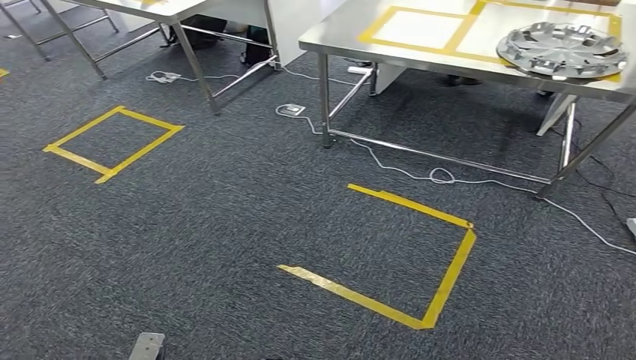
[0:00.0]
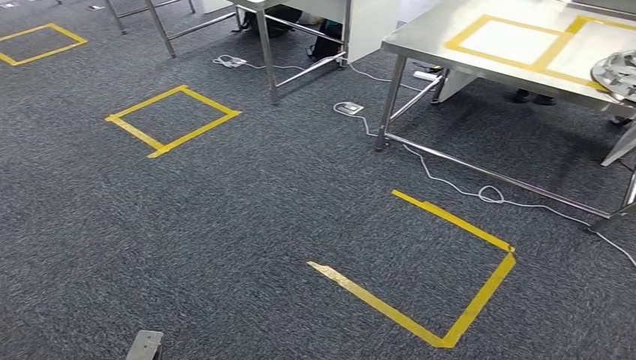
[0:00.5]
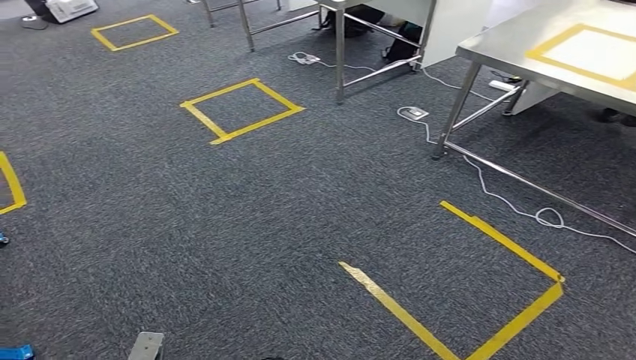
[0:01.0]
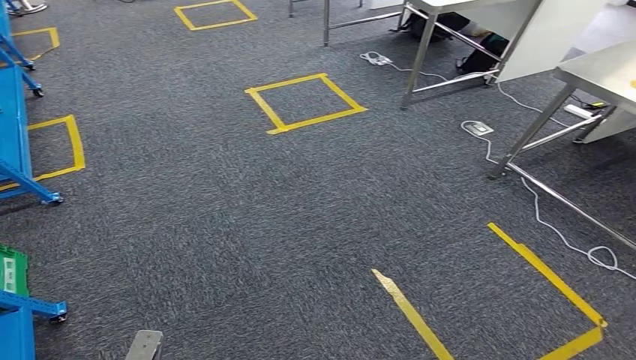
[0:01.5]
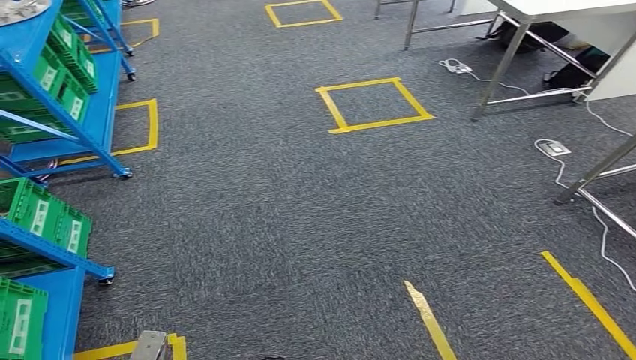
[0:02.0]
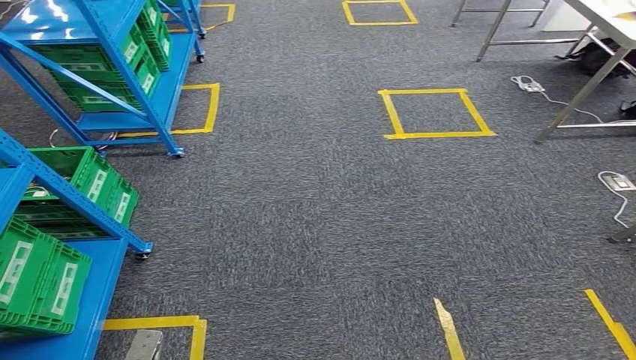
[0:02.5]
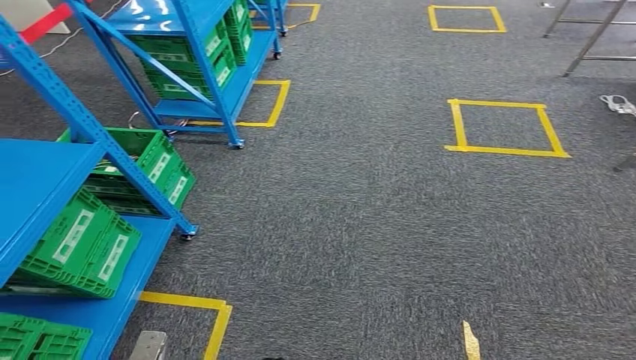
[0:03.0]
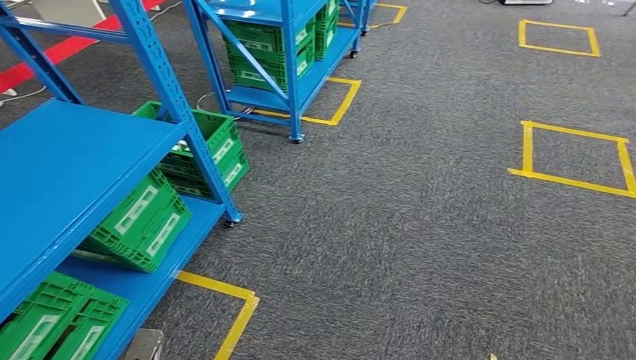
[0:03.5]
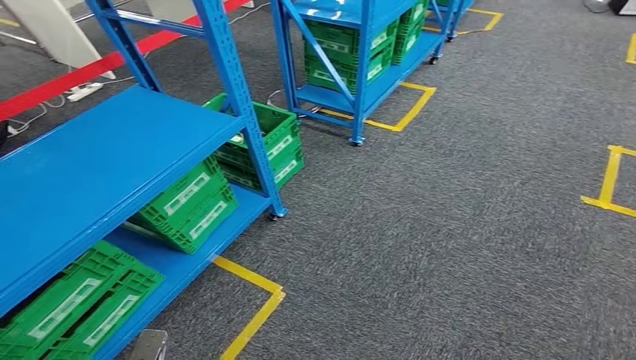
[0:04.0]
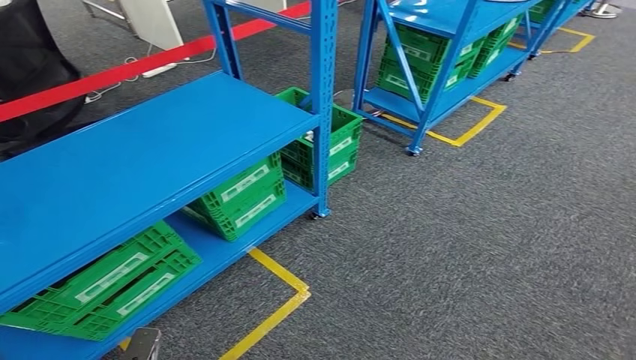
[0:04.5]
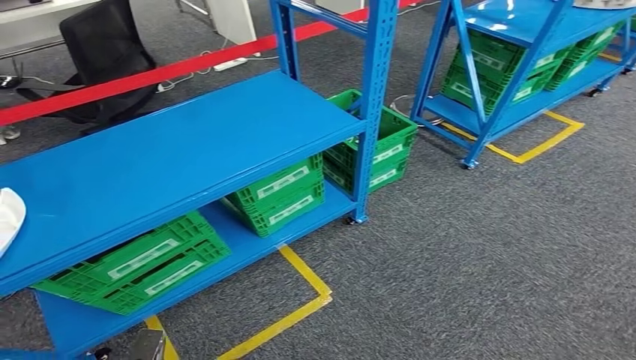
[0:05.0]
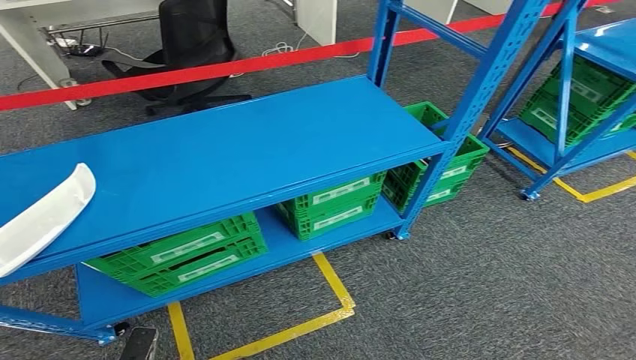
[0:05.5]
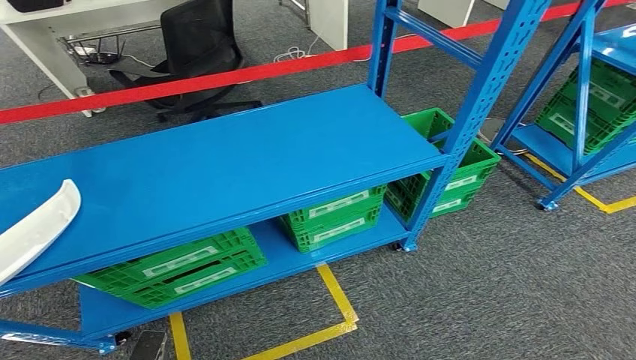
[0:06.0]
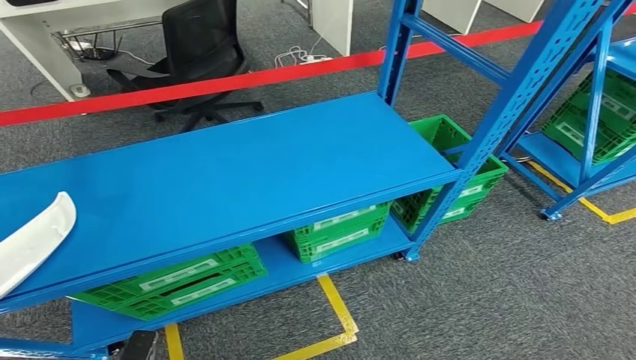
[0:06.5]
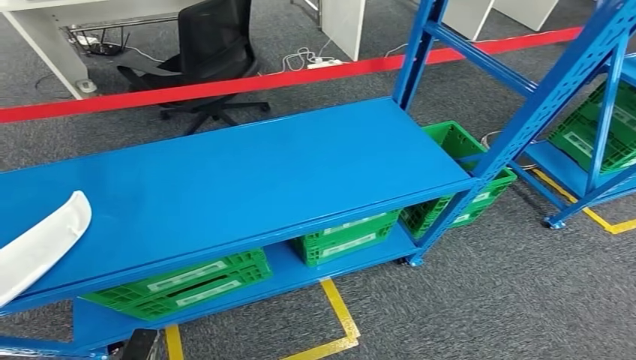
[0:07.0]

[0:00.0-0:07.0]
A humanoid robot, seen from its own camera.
Step, 0:00.0 to 0:07.0: Return to the initial position at the workbench.

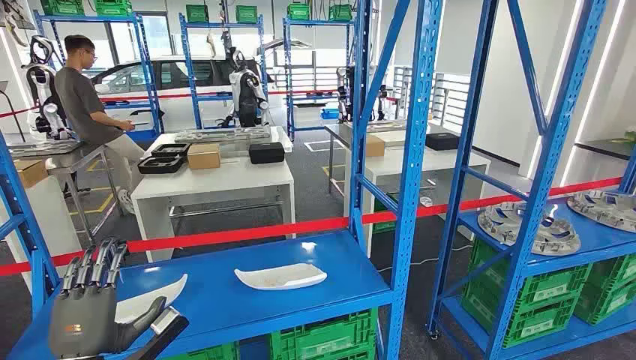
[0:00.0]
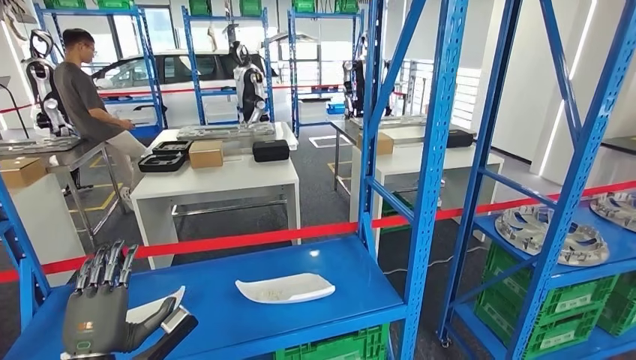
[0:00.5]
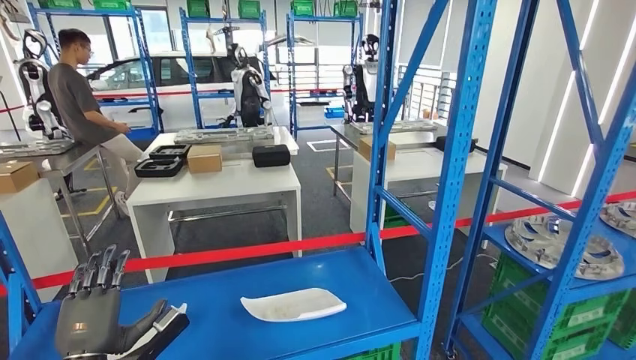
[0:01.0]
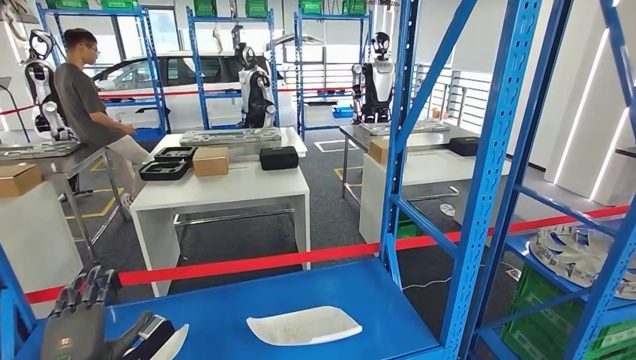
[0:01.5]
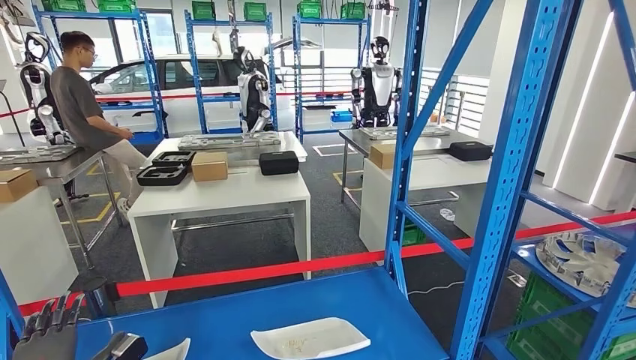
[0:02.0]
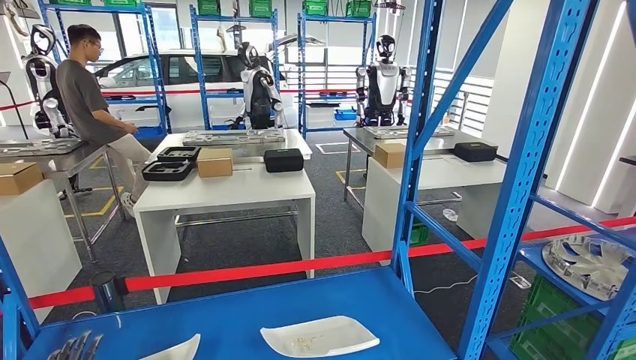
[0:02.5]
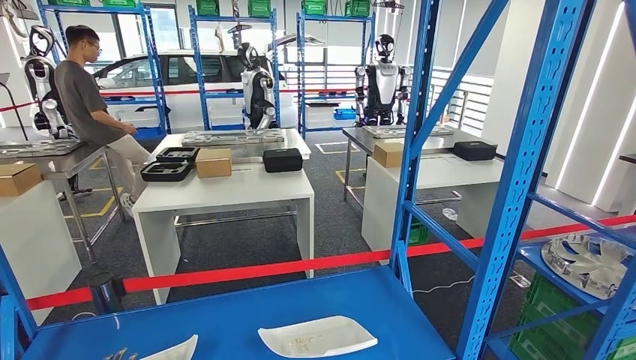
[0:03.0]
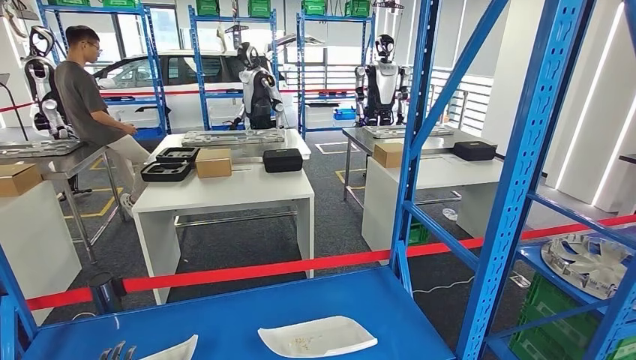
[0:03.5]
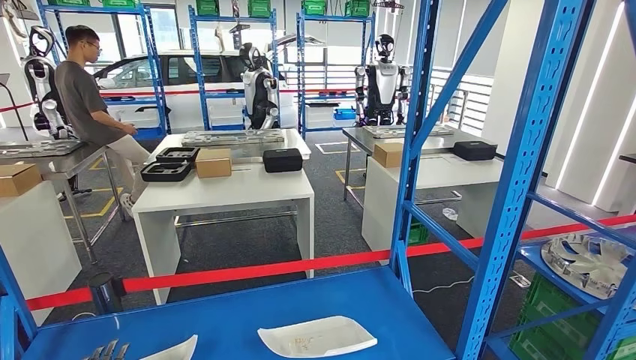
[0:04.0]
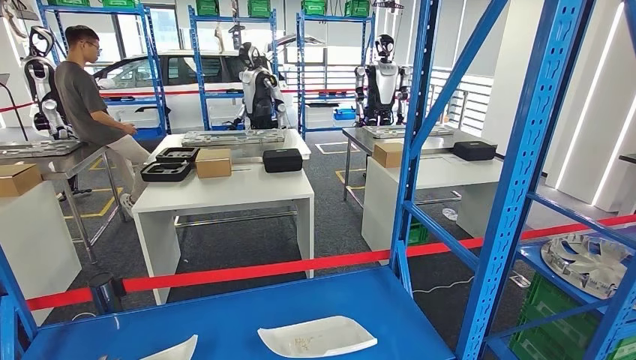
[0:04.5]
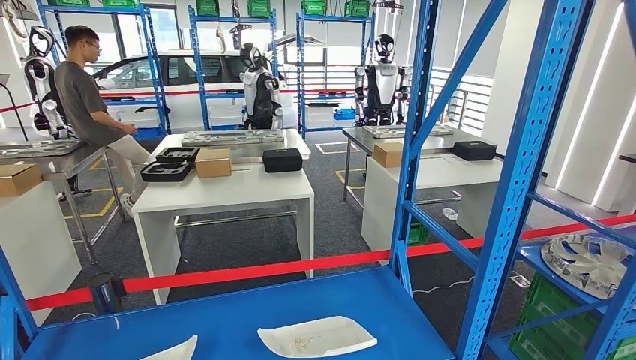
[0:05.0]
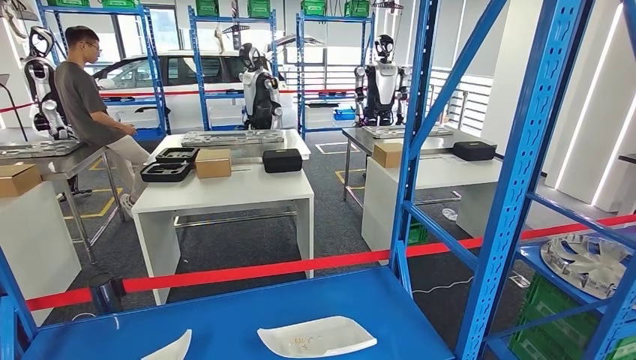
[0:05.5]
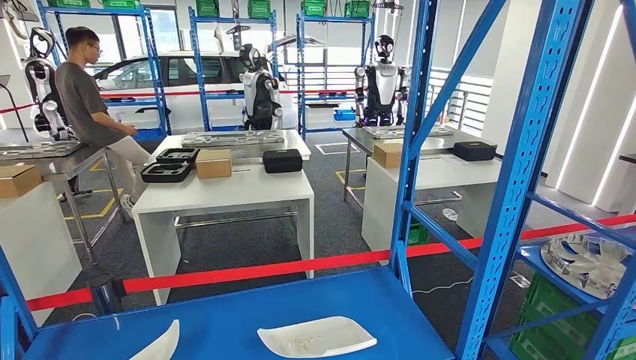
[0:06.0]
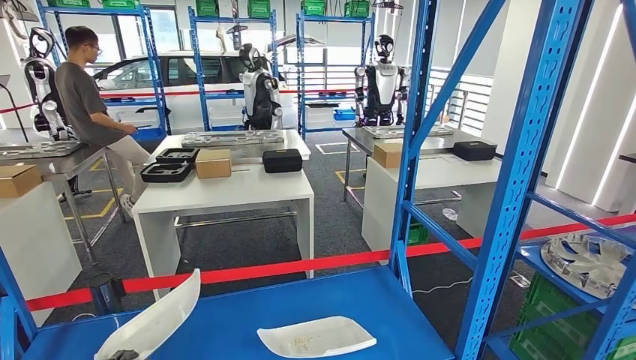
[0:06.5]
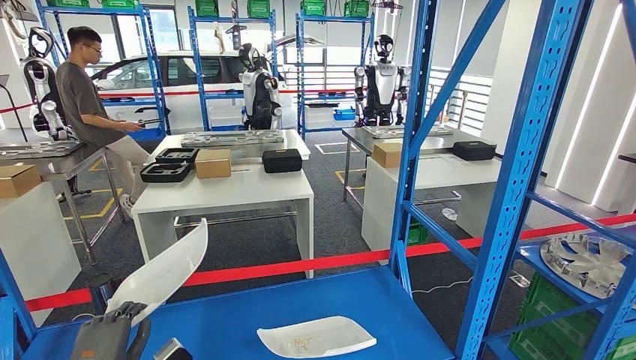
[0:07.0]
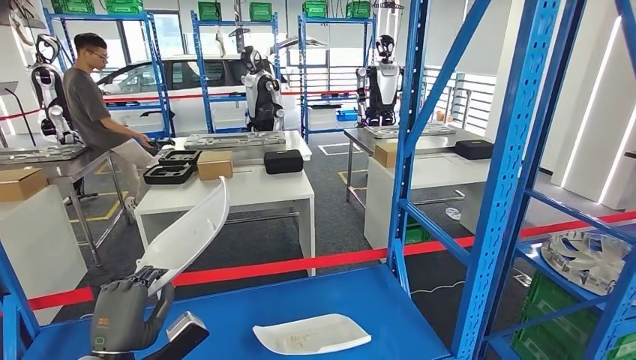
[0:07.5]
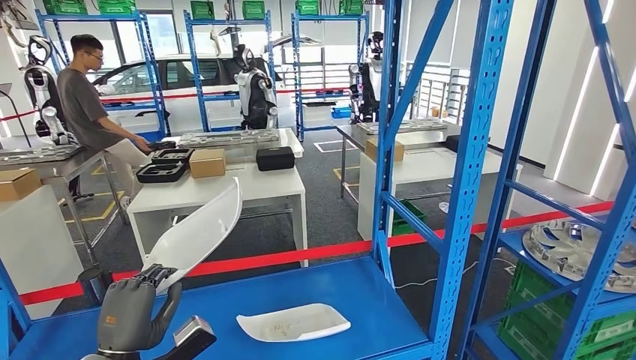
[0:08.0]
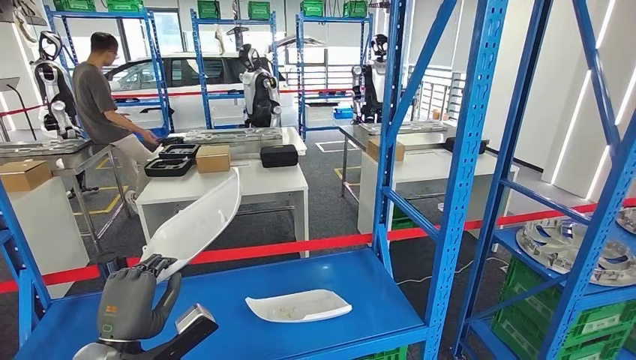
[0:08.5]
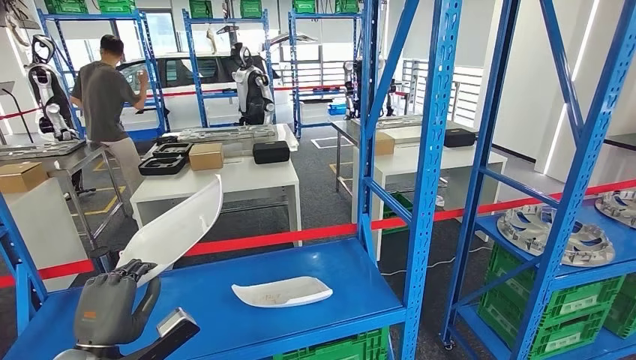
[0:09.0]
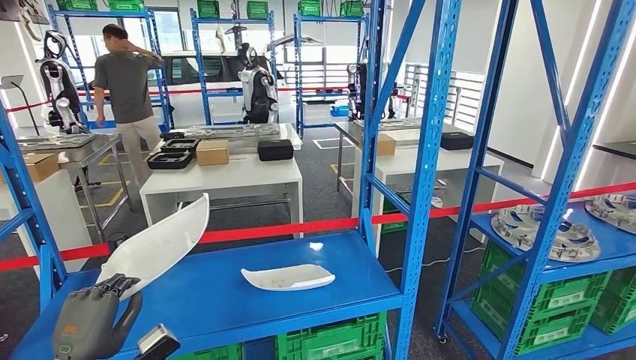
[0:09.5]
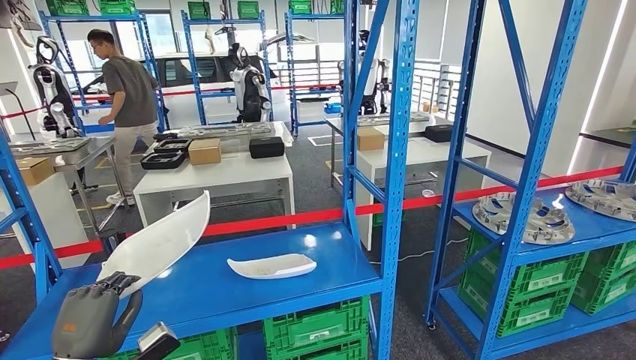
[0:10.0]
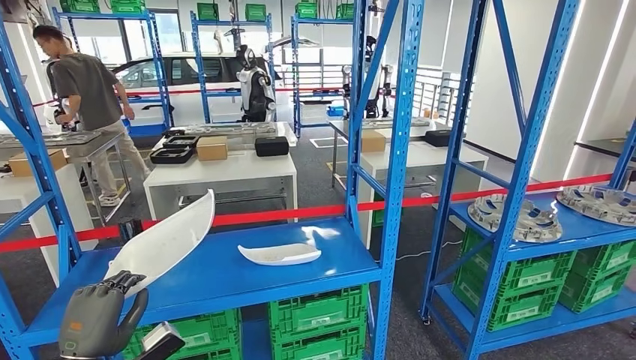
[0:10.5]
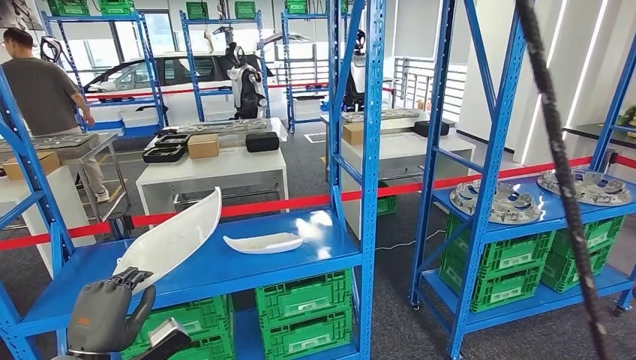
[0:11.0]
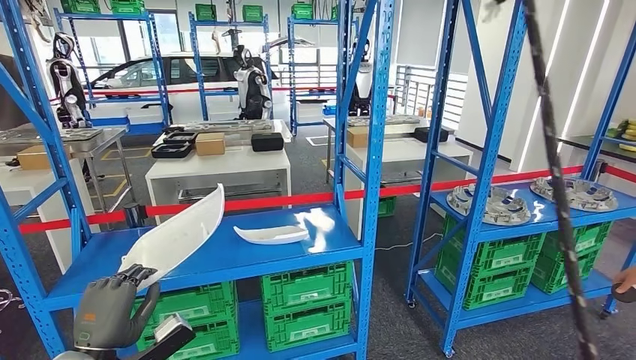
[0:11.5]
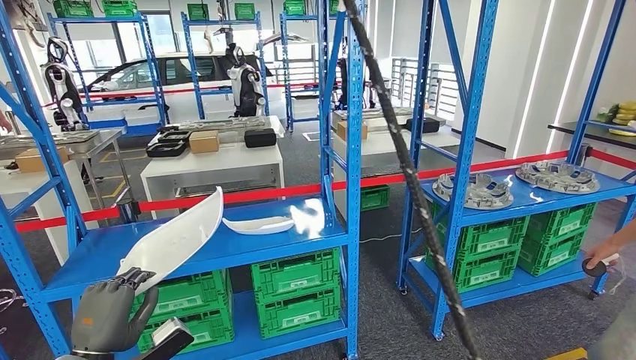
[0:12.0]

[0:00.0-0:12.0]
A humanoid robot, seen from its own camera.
Step, 0:00.0 to 0:08.0: Pick up the small component from the shelf.
0:04.0 to 0:06.0: The hands make only small movements.

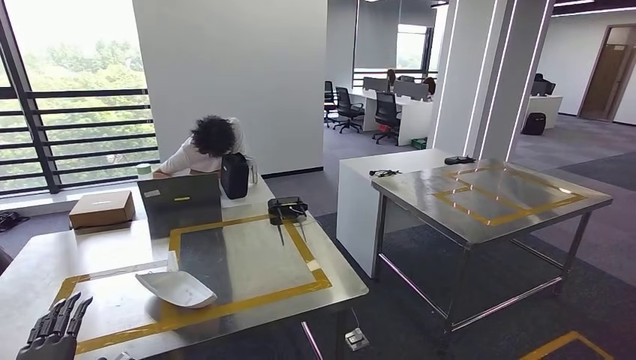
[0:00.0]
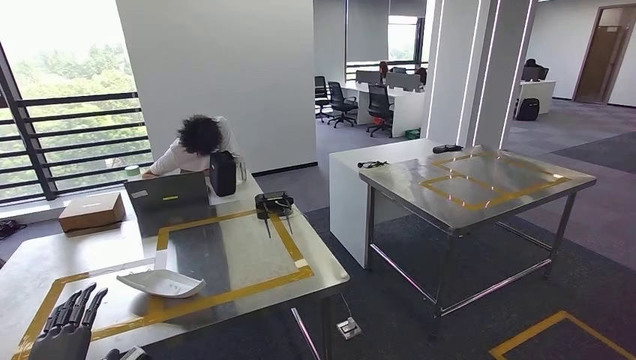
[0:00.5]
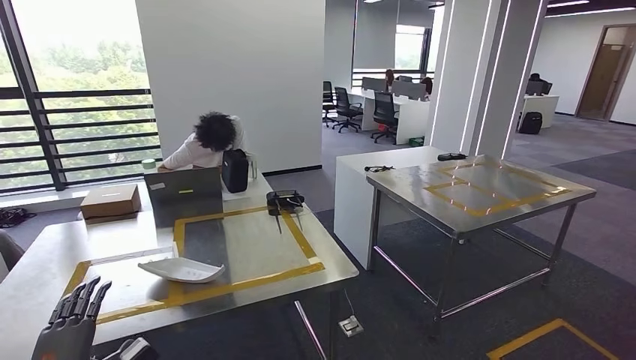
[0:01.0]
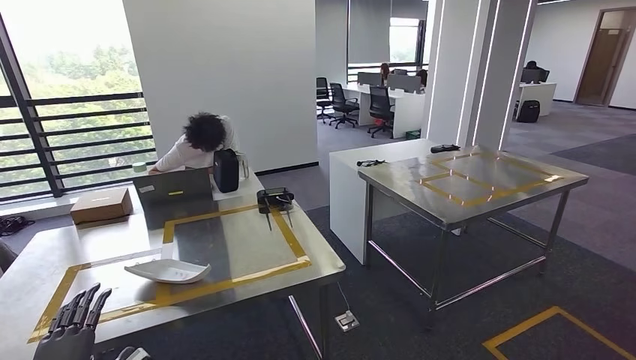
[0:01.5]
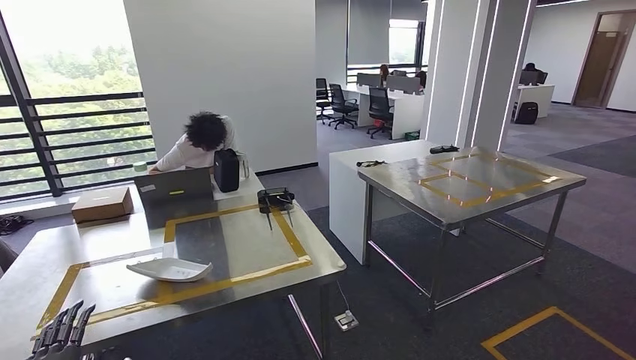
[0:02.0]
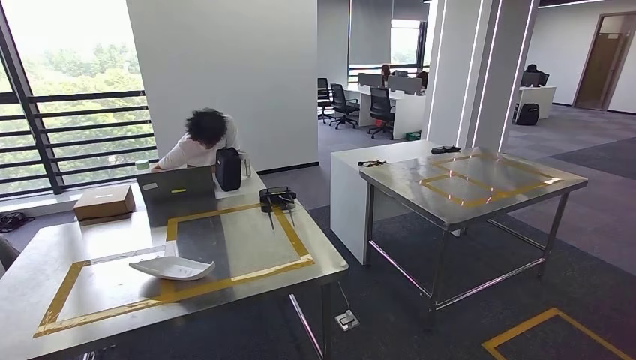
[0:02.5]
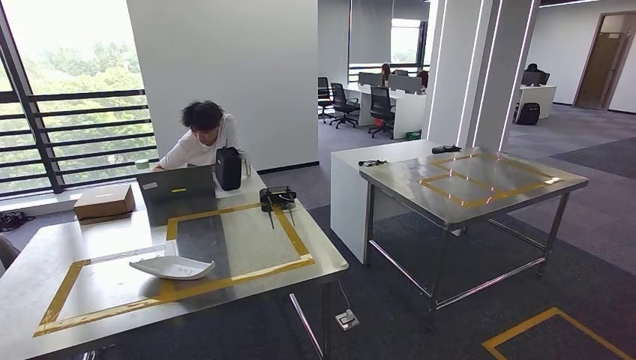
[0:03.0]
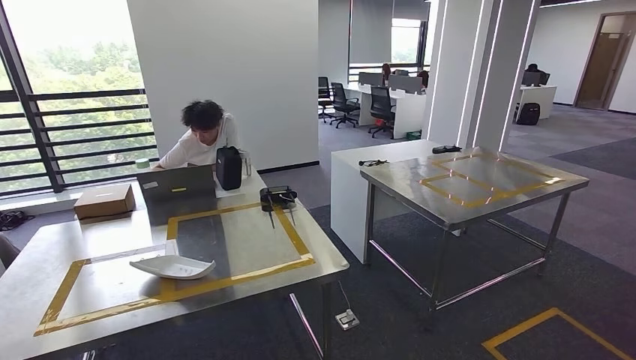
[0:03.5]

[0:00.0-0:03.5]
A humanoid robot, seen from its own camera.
Step, 0:00.0 to 0:03.5: Return to the initial position at the workbench.
0:02.0 to 0:03.5: The left hand moves backward and downward, roughly 40 cm.
